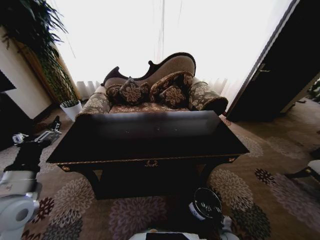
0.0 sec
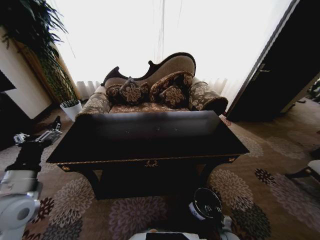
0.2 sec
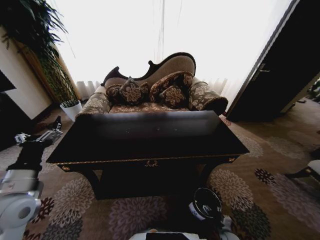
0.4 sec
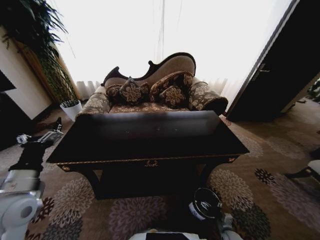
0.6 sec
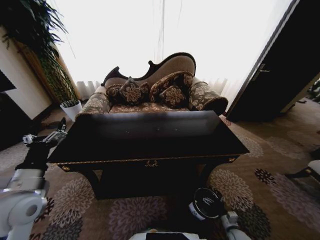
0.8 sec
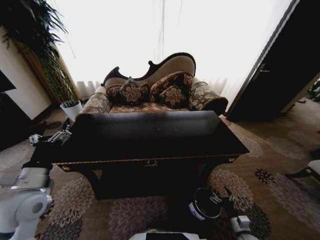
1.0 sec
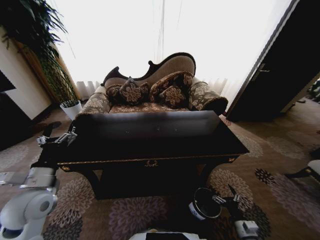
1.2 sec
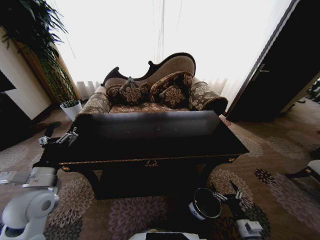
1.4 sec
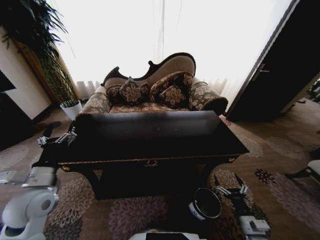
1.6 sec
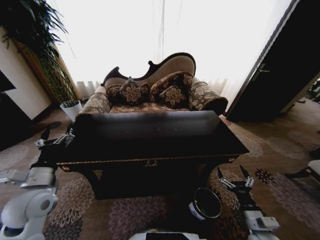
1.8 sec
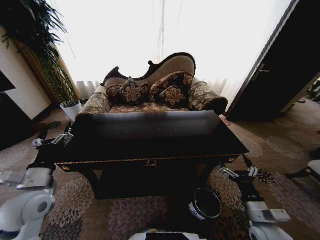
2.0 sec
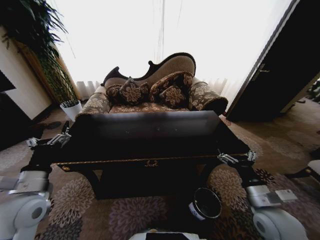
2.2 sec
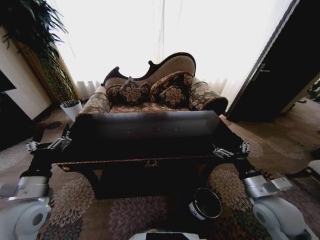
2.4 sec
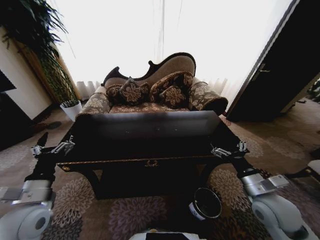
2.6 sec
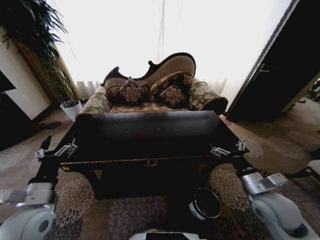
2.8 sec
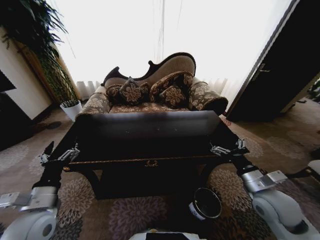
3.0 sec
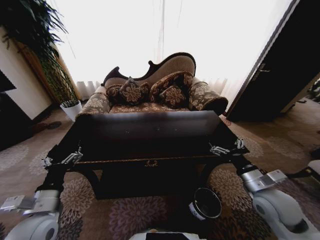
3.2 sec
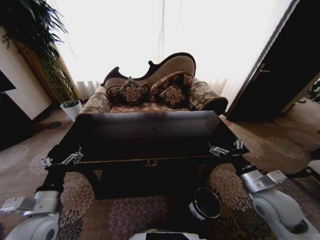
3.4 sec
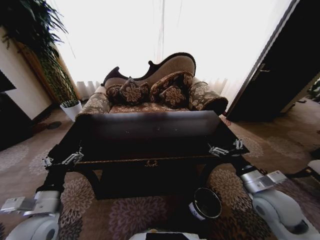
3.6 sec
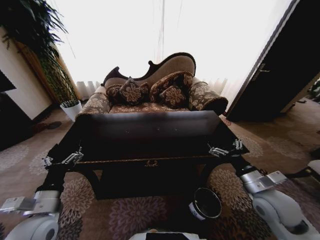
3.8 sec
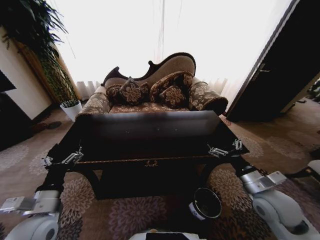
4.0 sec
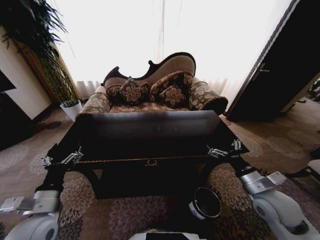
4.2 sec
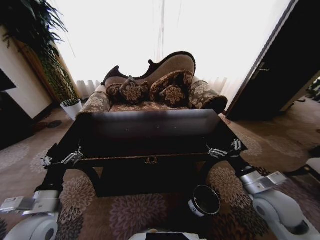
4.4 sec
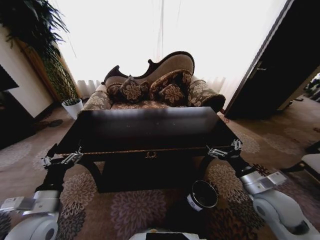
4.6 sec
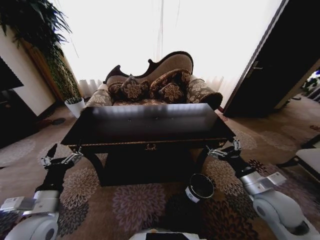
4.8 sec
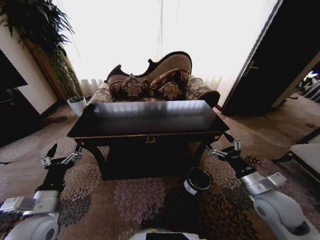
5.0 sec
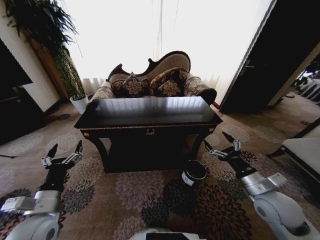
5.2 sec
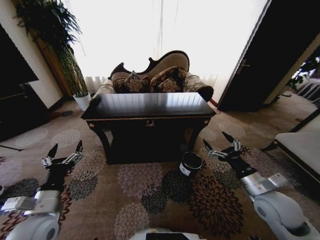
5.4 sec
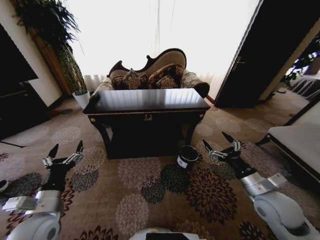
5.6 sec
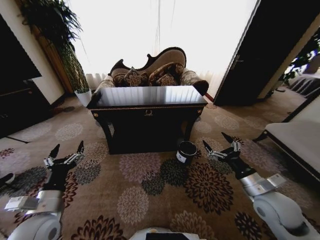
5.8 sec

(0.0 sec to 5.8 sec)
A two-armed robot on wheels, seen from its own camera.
Task of the whole recording: Move to the front of the table and place the trash on the table into the trash bin.
0.0 sec - 1.4 sec: The right gripper moves upward, roughly 20 cm, and opens.
1.4 sec - 2.8 sec: The right gripper is displaced upward and forward by some 25 cm.
2.8 sec - 4.4 sec: The grippers make only small movements.

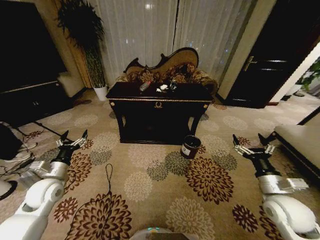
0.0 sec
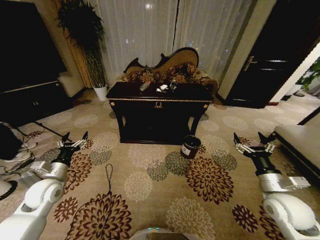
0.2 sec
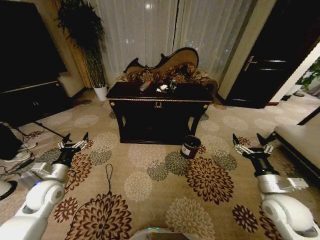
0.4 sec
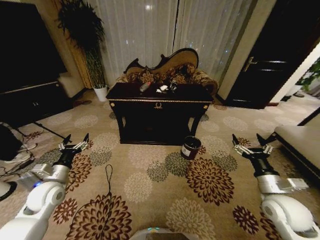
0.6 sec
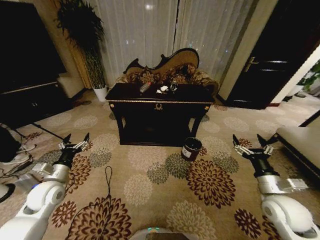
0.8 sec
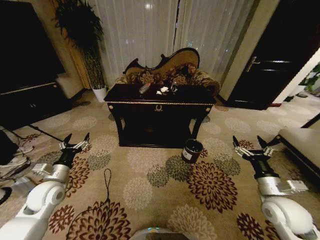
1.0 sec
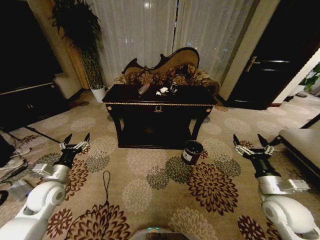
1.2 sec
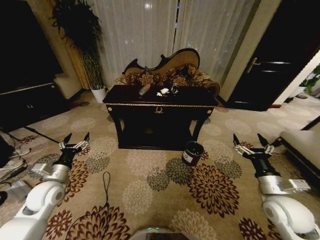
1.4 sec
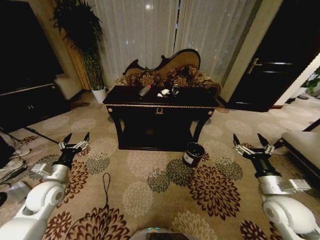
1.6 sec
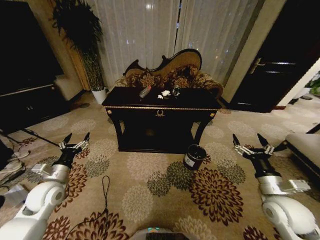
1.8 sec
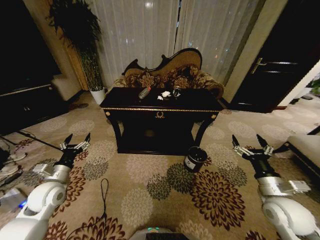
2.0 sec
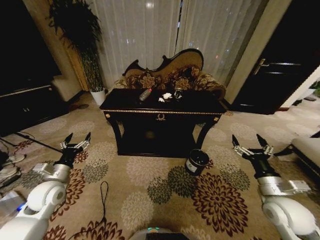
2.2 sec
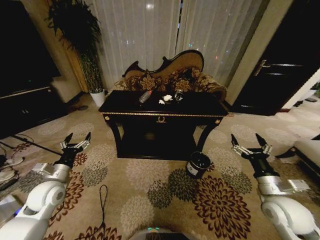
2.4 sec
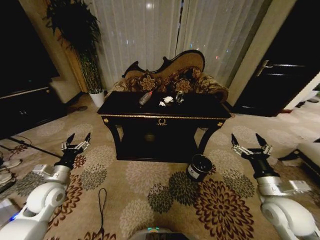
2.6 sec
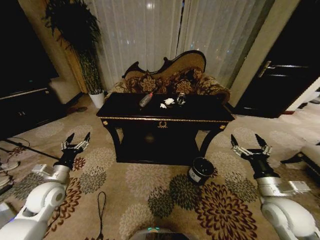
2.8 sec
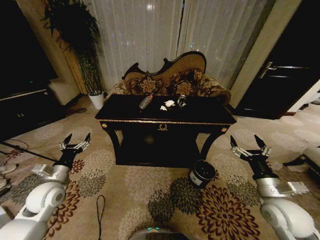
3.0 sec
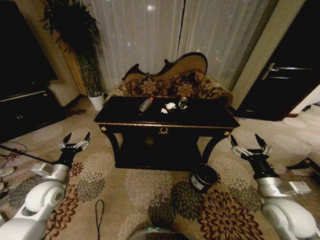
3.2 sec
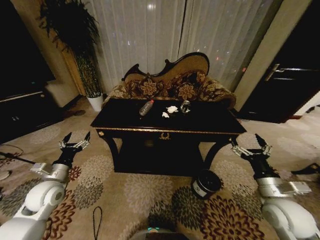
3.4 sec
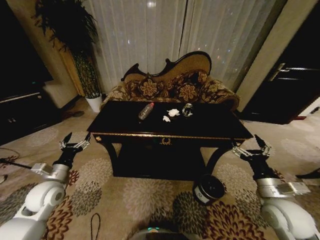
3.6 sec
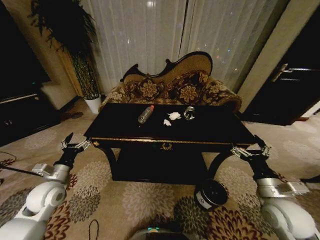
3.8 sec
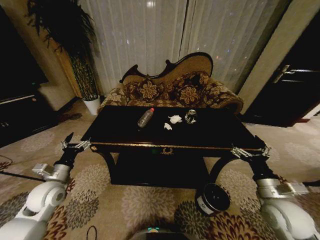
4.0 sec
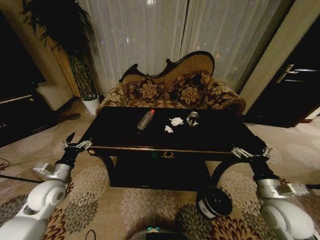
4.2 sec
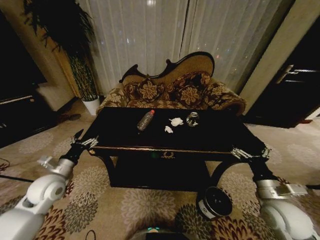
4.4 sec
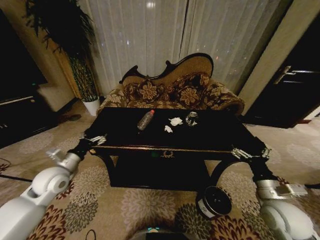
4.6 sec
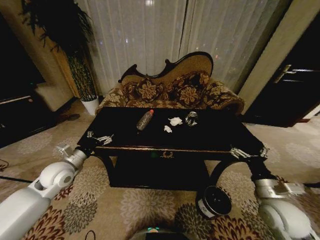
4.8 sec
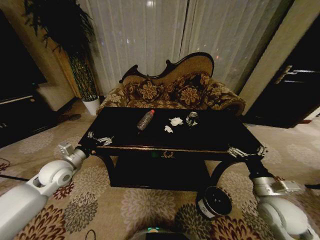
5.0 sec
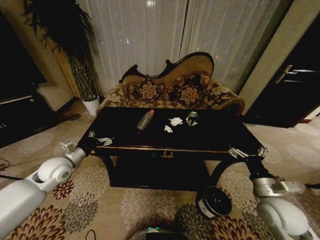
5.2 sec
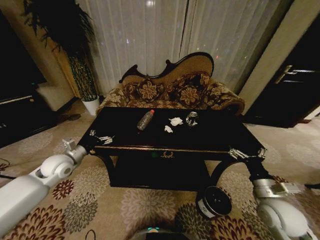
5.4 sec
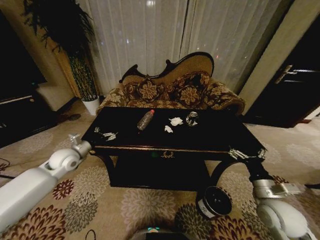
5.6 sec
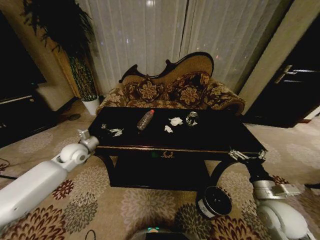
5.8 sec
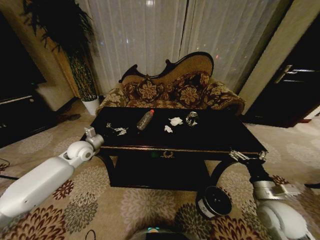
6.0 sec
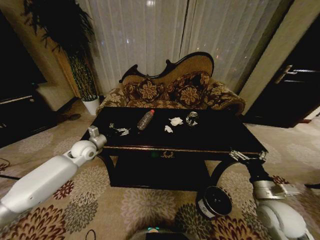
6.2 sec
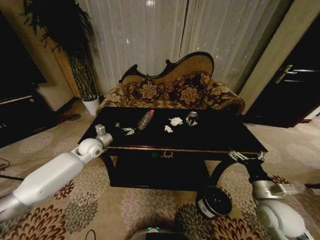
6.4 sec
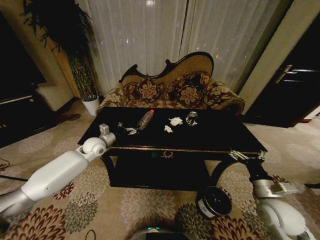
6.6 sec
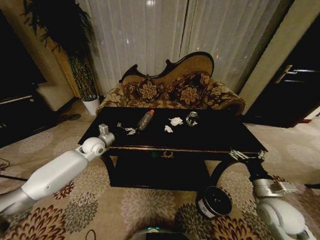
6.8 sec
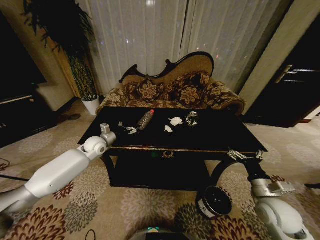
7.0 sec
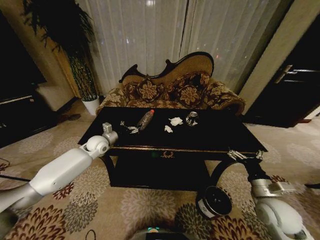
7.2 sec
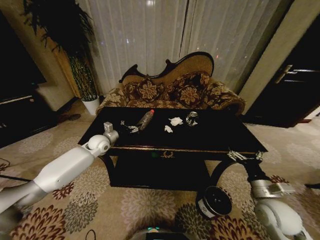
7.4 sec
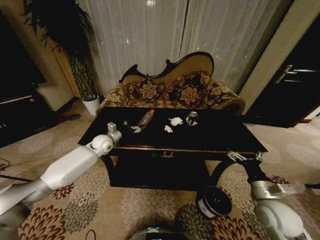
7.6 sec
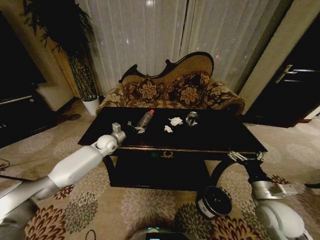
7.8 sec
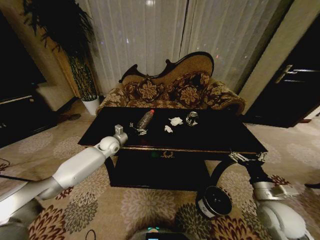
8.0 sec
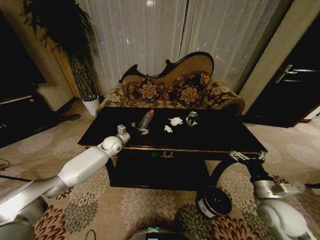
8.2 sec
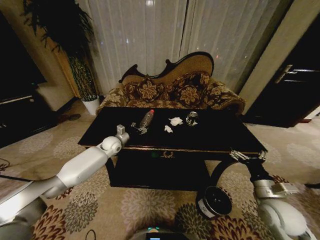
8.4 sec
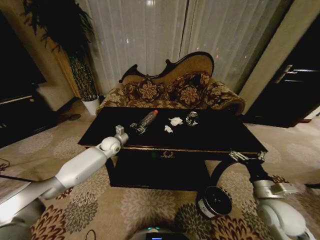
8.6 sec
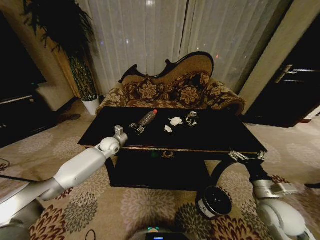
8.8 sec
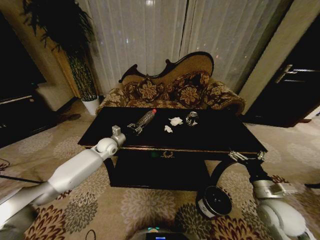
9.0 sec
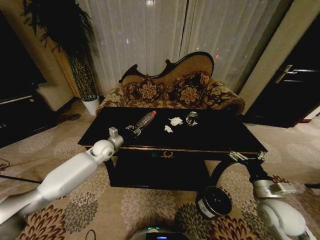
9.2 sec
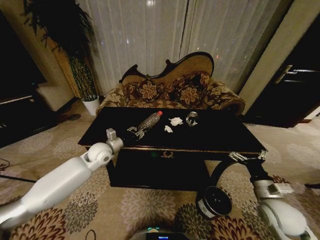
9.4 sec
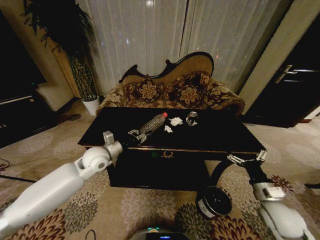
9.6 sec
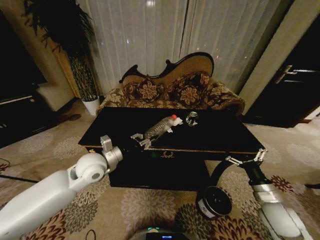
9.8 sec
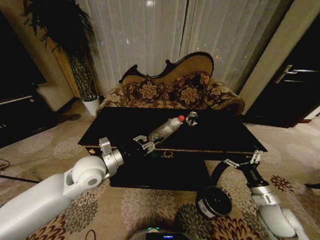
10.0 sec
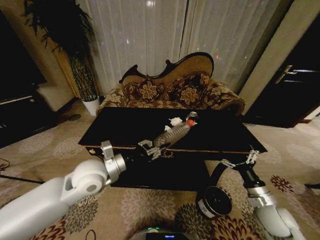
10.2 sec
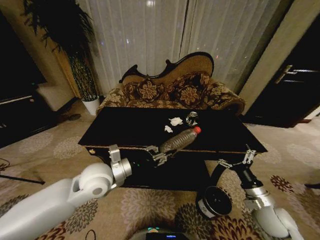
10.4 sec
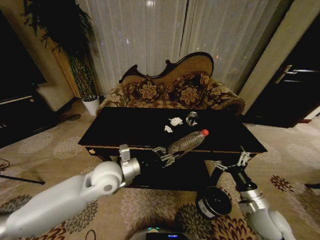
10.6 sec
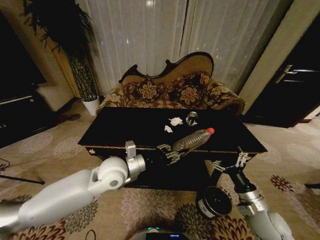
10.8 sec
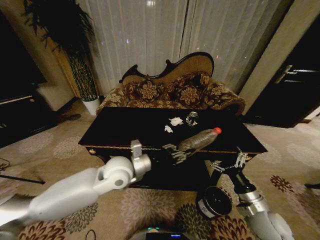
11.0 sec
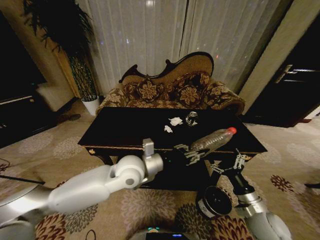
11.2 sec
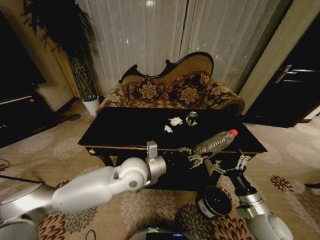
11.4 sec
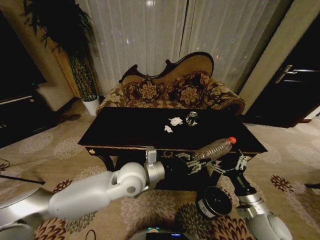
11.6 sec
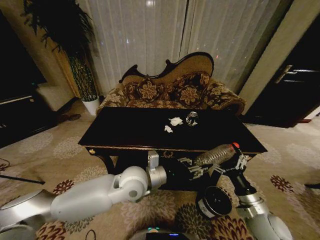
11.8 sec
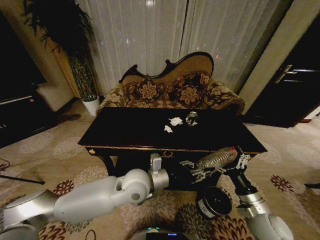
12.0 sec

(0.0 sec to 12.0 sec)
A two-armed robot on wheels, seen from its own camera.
Task of the whole recording: Move to the front of the table and place the trash on the table into the trash bin.
4.4 sec - 6.0 sec: The left gripper heads forward, covering about 15 cm.
6.0 sec - 7.6 sec: The left gripper moves forward and to the right, approximately 10 cm.
7.6 sec - 9.0 sec: The left gripper closes.
9.0 sec - 10.4 sec: The left gripper moves backward and upward, roughly 25 cm.
10.4 sec - 12.0 sec: The left gripper is displaced to the right by some 10 cm.

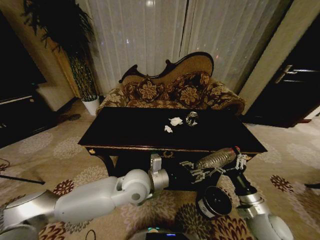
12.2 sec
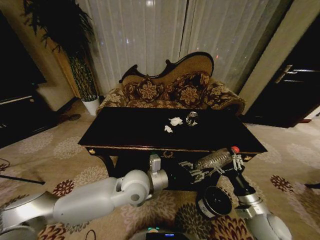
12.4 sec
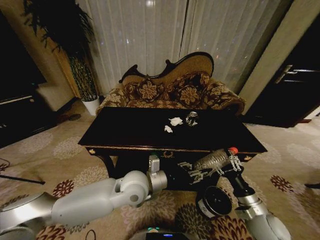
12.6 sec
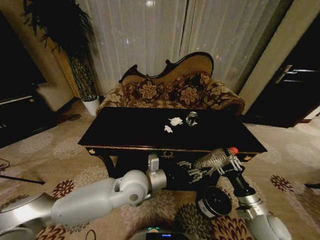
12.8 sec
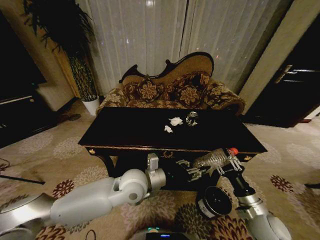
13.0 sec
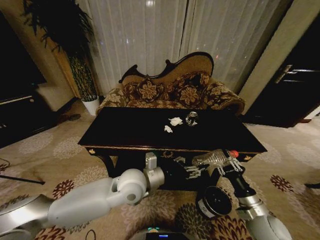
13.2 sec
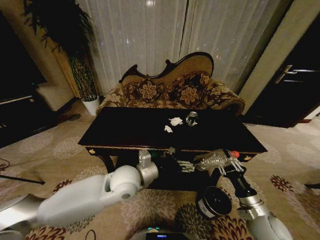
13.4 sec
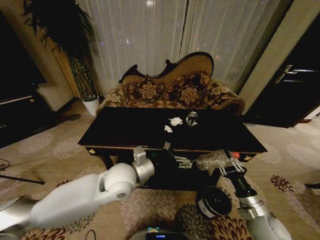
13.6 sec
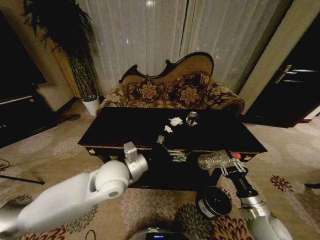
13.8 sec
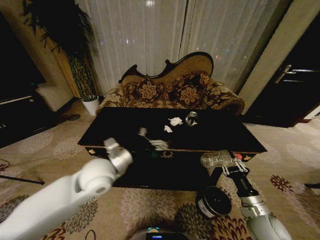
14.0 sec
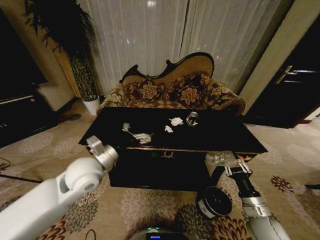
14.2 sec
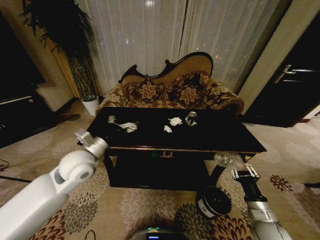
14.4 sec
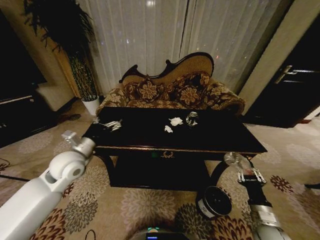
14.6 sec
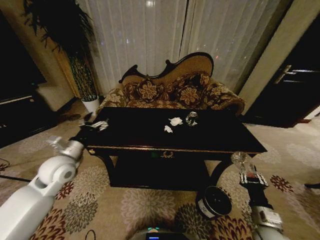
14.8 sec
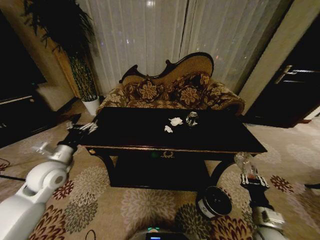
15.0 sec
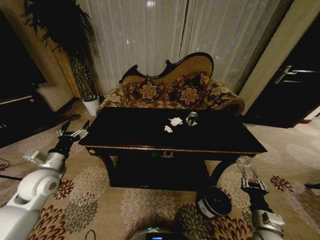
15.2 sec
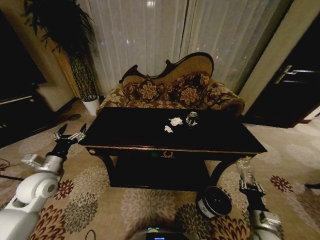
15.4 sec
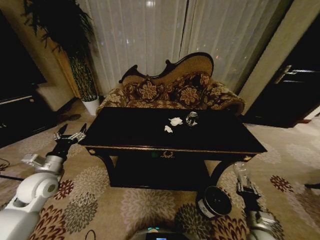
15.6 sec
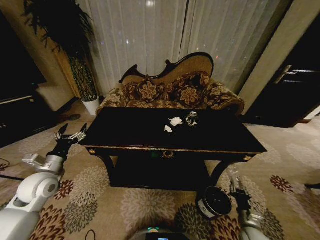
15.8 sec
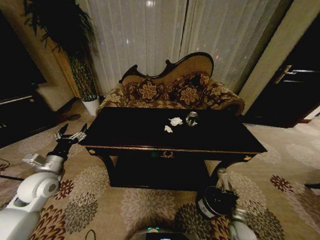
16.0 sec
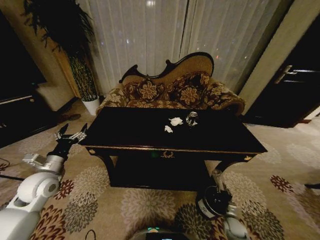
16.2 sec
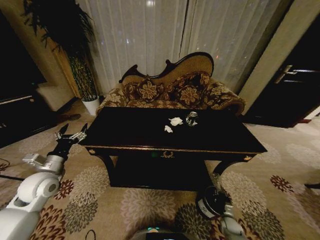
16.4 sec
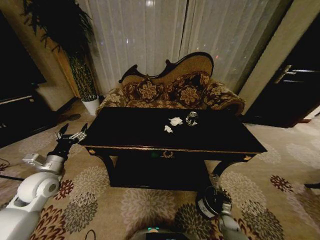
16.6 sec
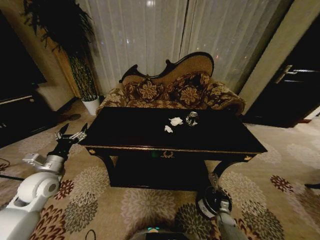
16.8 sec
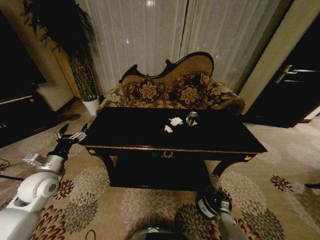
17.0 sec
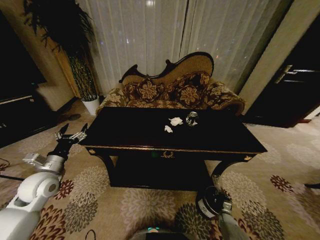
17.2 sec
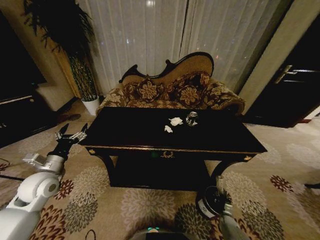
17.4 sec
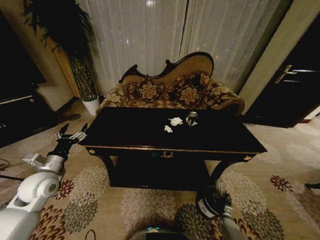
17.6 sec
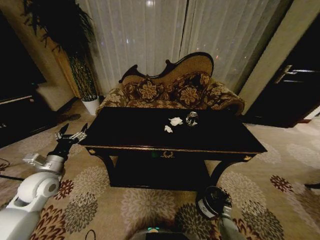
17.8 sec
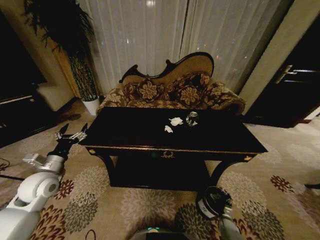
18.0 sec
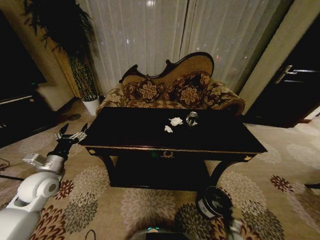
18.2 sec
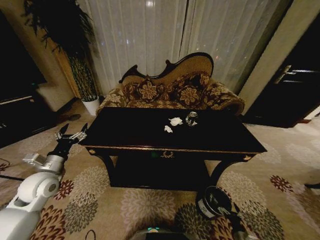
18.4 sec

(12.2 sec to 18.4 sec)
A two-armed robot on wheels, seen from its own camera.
Task of the whole recording: Move to the front of the table and place the trash on the table into the trash bin.
12.2 sec - 13.8 sec: The left gripper shifts roughly 5 cm to the left, and opens; the right gripper closes its fingers.
13.8 sec - 15.4 sec: The left gripper heads to the left, covering approximately 30 cm. Meanwhile the right gripper heads downward, covering roughly 5 cm.
15.4 sec - 16.8 sec: The right gripper travels downward by roughly 25 cm.
16.8 sec - 18.4 sec: The right gripper shifts about 15 cm backward, and opens up.
